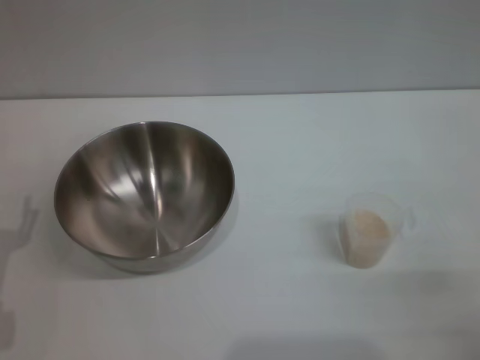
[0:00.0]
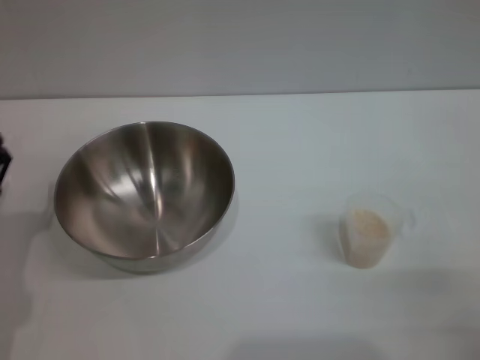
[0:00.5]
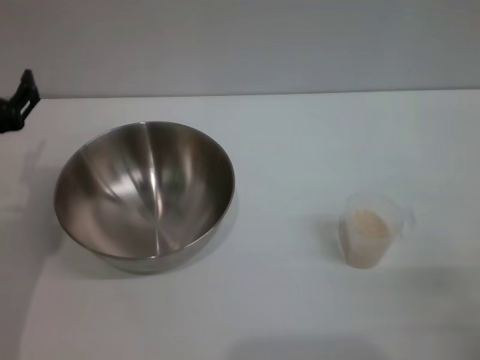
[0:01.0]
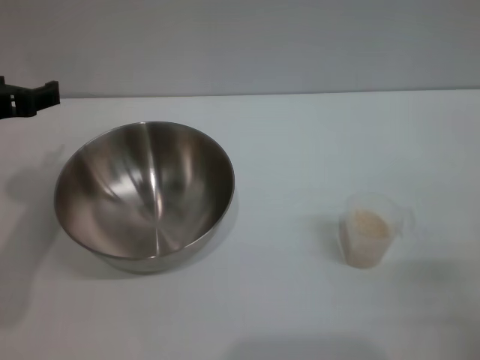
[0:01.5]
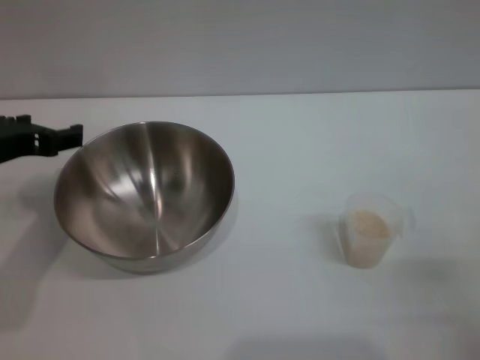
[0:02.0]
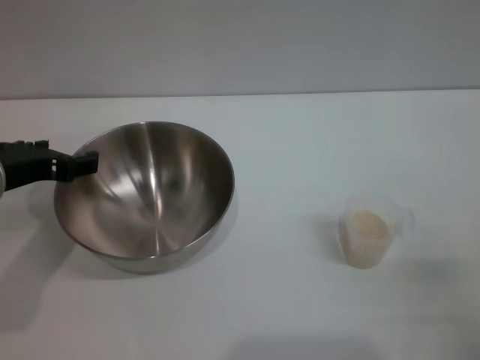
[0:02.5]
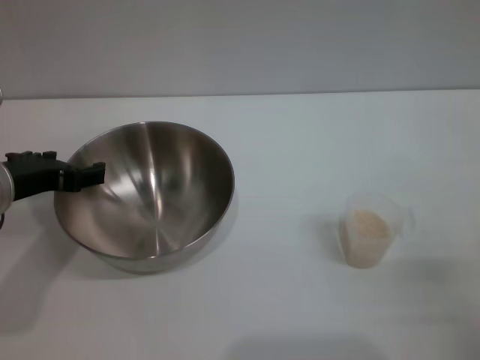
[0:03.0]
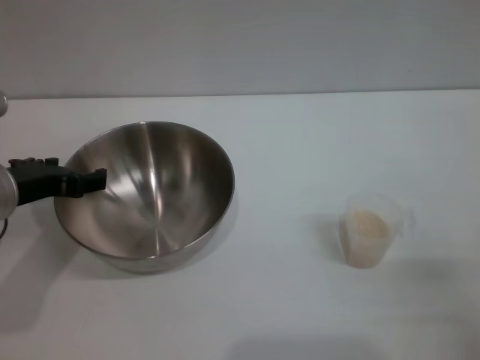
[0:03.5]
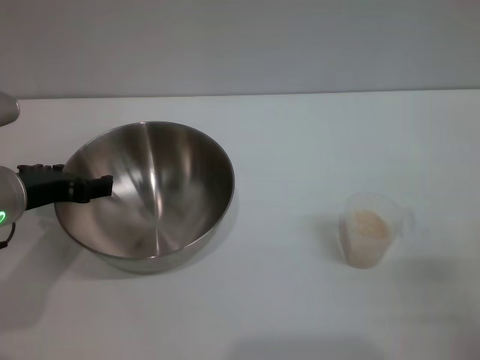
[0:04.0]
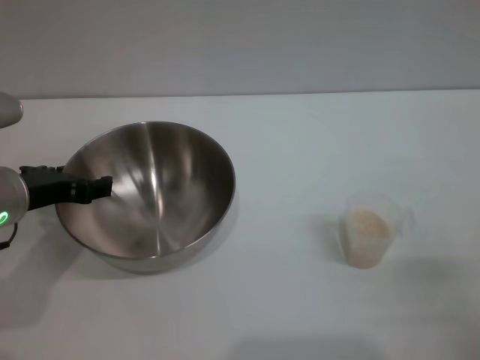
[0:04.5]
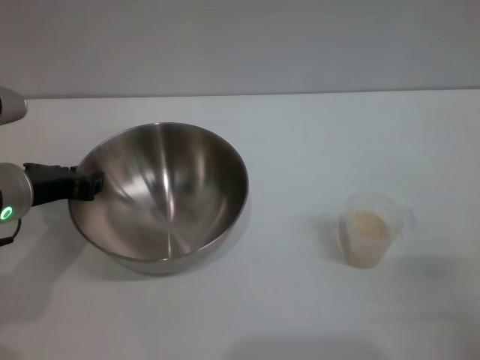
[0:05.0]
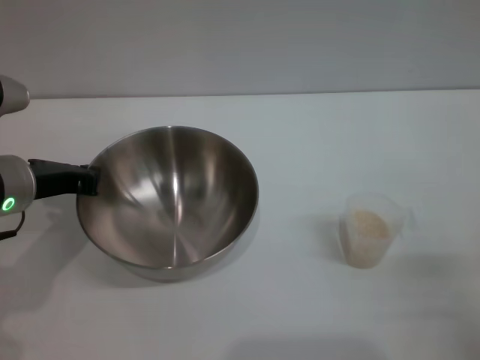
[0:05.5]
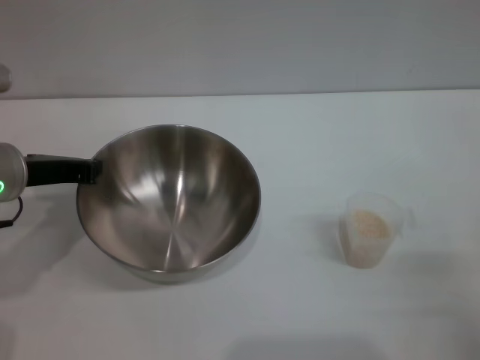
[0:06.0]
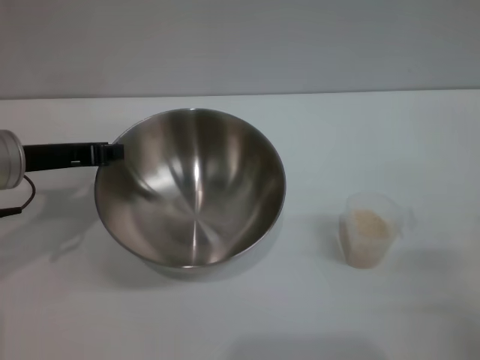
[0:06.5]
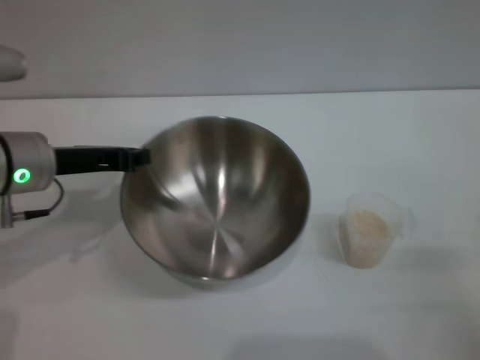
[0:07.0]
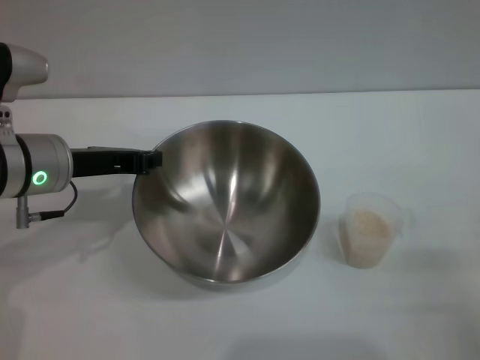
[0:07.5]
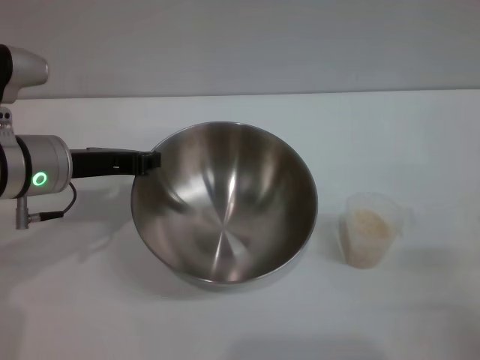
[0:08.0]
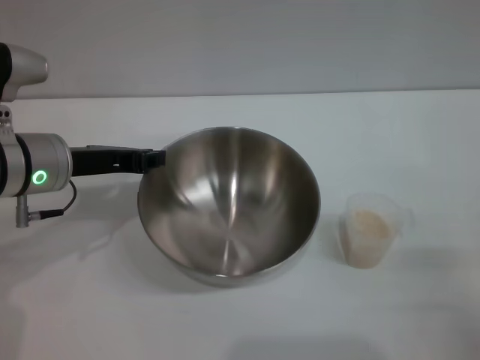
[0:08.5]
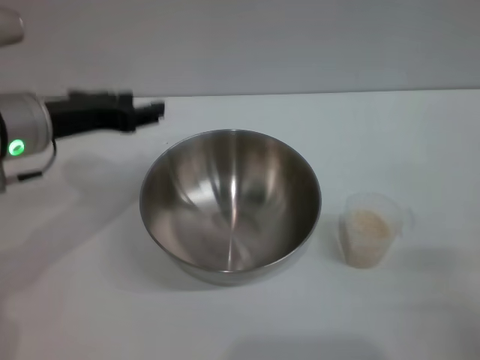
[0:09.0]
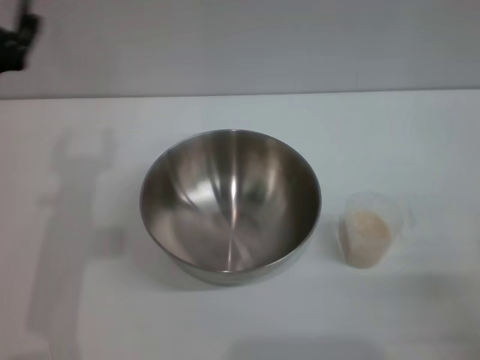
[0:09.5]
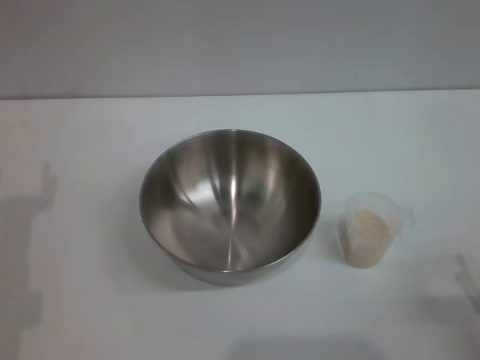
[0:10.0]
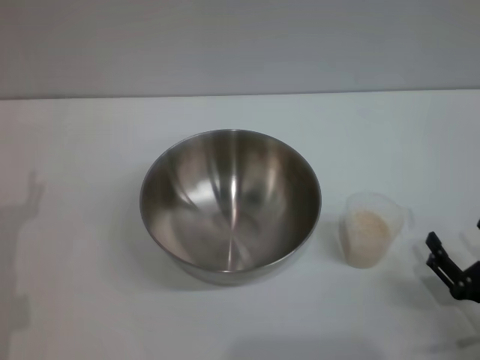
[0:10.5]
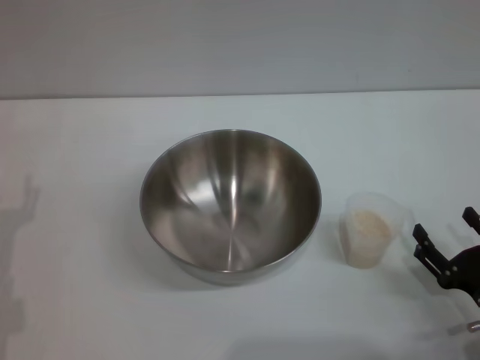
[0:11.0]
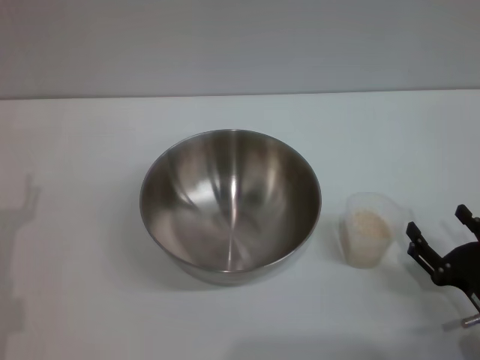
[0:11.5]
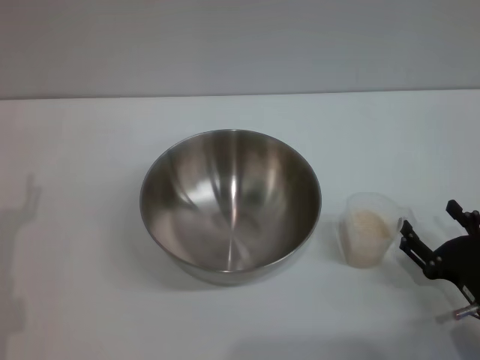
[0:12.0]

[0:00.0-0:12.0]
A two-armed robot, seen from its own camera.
Task of the whole recording: Place the bowl in the middle of the table with one hand and pour the rice from the grain cup into it with the other hand.
Step, 0:00.0 to 0:06.5: Pick up the bowl with the left gripper.
Step, 0:07.0 to 0:08.5: Place the bowl in the center of view with the left gripper.
0:00.0 to 0:02.0: The left gripper goes roughly 20 cm upward and forward.
0:02.0 to 0:04.0: There are only small adjustments of the grippers.
0:04.0 to 0:06.0: The left gripper closes up.
0:06.0 to 0:08.0: The grippers move only a little.
0:08.0 to 0:10.0: The left gripper travels backward, to the left and downward by approximately 15 cm, and opens its fingers; the right gripper travels backward by roughly 5 cm.
0:10.0 to 0:12.0: The right gripper is displaced forward by some 5 cm.

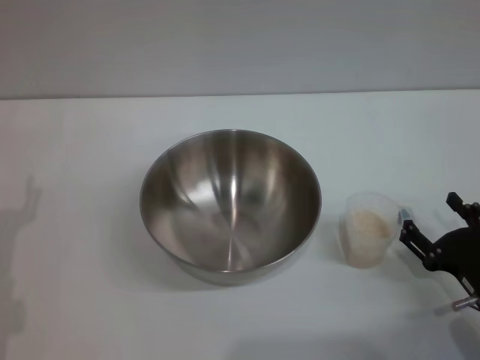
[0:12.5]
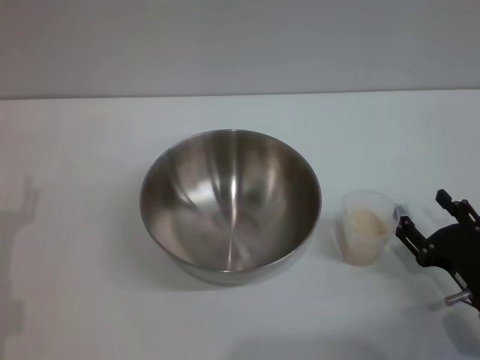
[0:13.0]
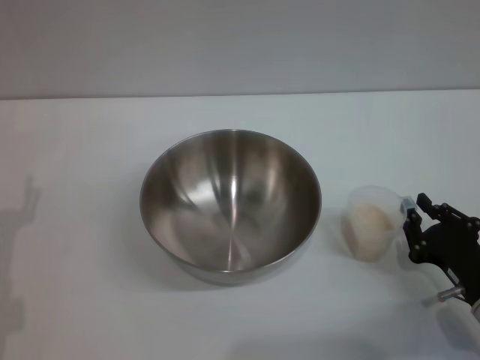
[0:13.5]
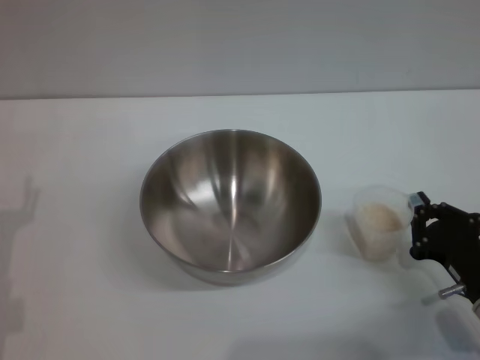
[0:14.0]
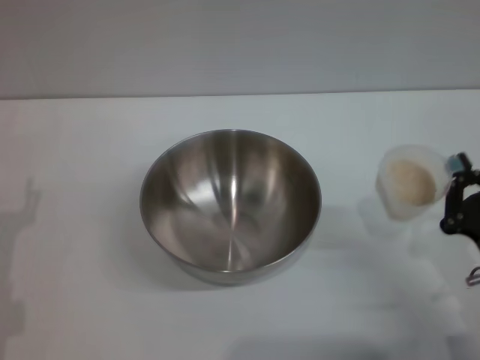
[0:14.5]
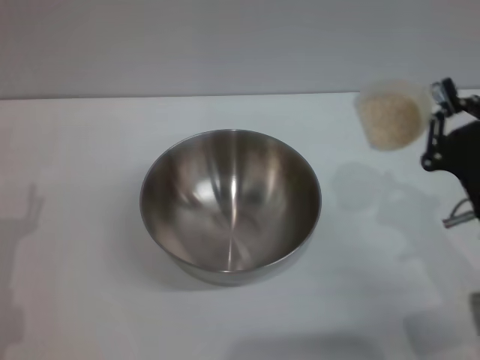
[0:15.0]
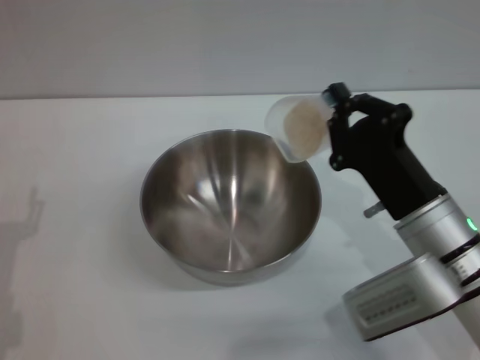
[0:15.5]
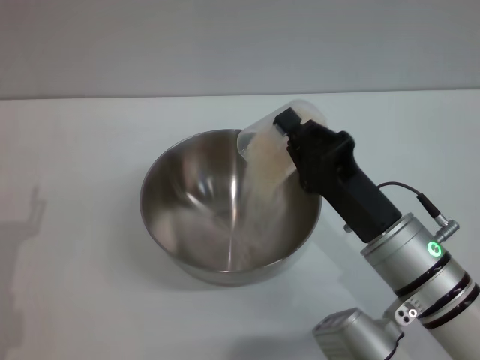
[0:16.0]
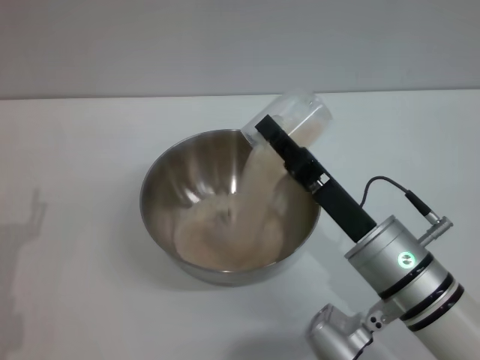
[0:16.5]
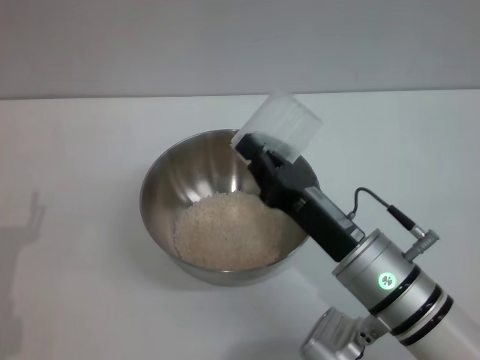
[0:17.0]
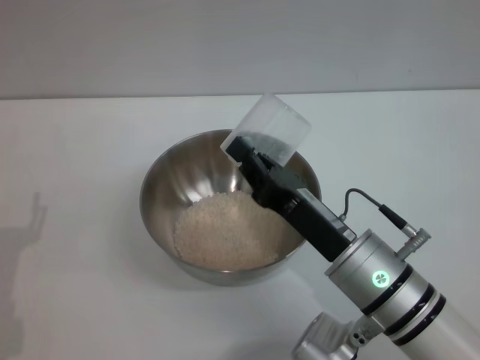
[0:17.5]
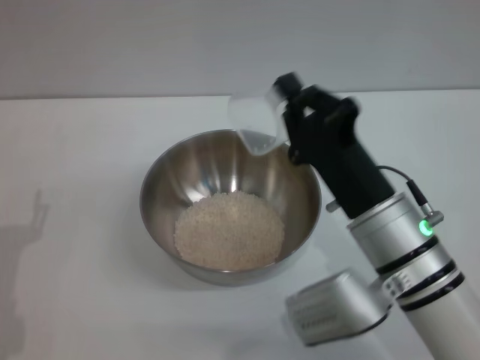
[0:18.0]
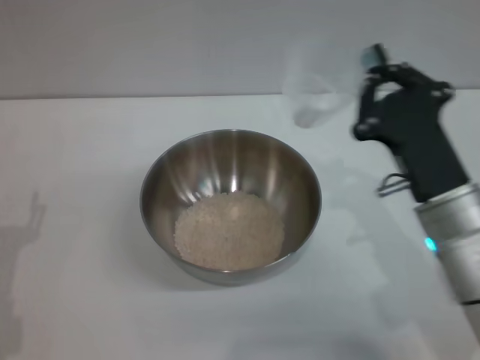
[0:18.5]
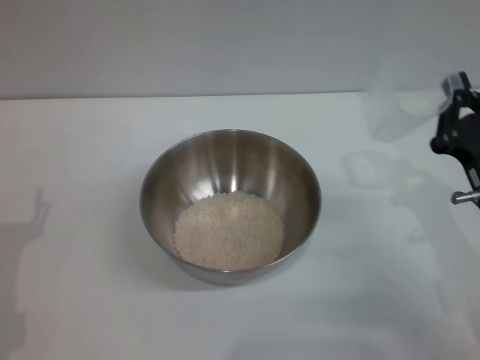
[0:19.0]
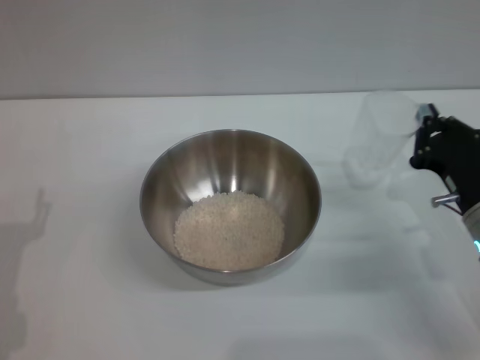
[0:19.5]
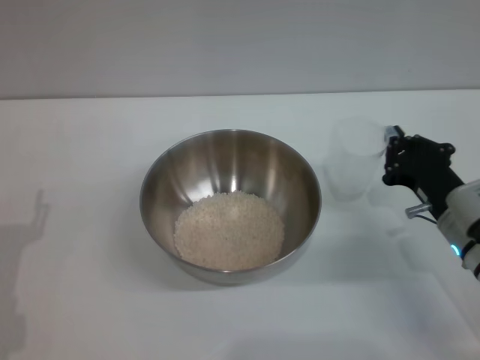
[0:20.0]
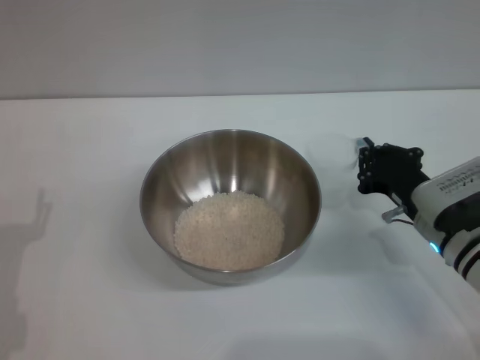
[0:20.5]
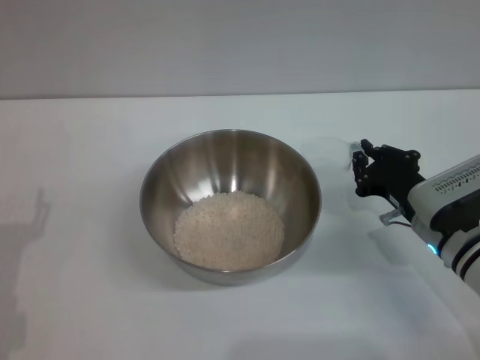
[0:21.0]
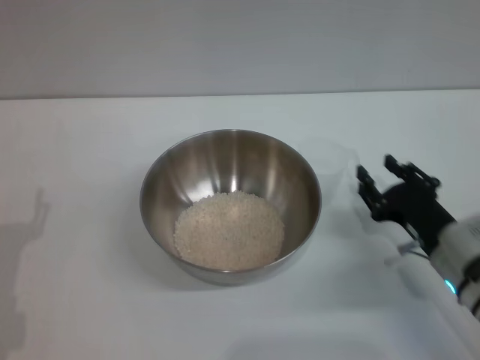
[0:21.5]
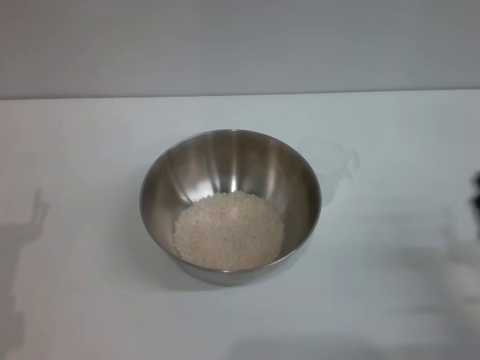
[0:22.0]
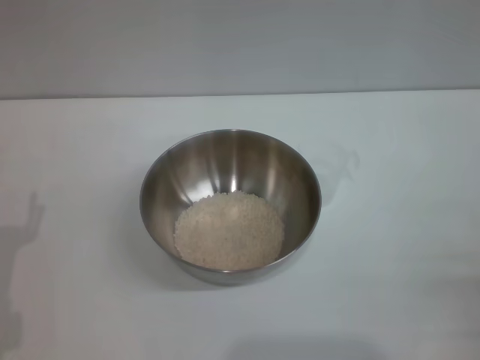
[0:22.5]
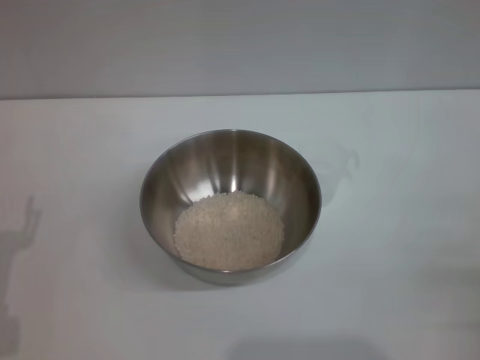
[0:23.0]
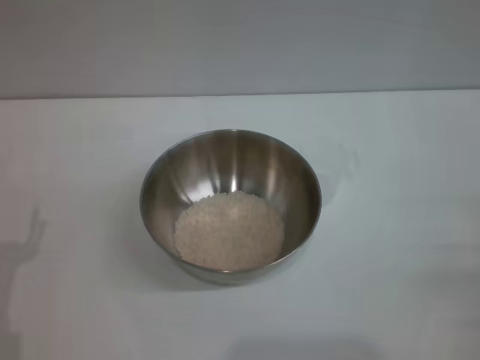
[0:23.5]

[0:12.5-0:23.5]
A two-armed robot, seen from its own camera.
Task of the whole recording: Place the bowl in the middle of the table with one hand and pour the rice from the grain cup into it with the other hand.
Step, 0:12.5 to 0:14.5: Pick up the cup with rice in it with the right gripper.
Step, 0:15.0 to 0:17.5: Pour the rice from the cup into the bowl with the right gripper.
Step, 0:18.0 to 0:21.5: Place the cup on the table with the right gripper.
0:12.5 to 0:14.5: The right gripper closes up.
0:14.5 to 0:16.0: The right gripper is displaced to the left by some 10 cm.
0:18.0 to 0:20.0: The right gripper shifts roughly 15 cm to the right and downward.
0:20.0 to 0:21.5: The right gripper opens up.
0:21.5 to 0:23.5: The right gripper goes approximately 15 cm backward and to the right, and opens.
